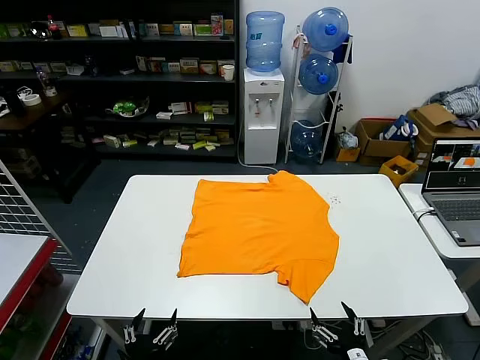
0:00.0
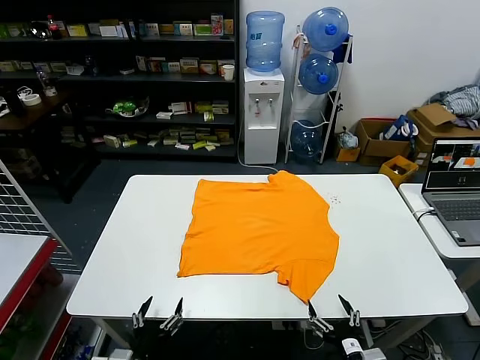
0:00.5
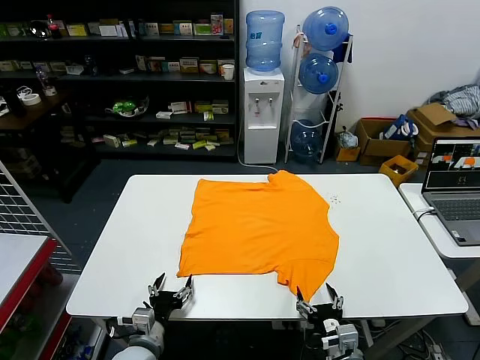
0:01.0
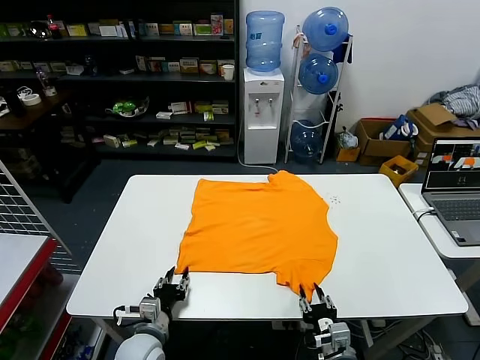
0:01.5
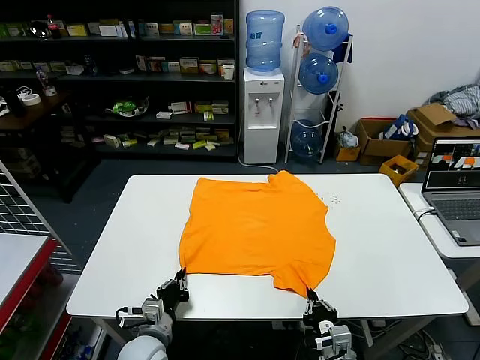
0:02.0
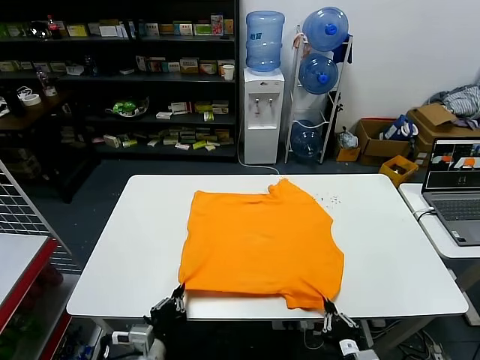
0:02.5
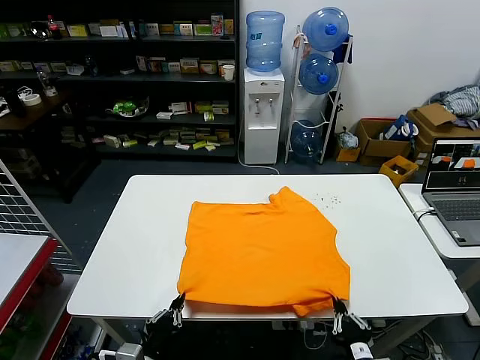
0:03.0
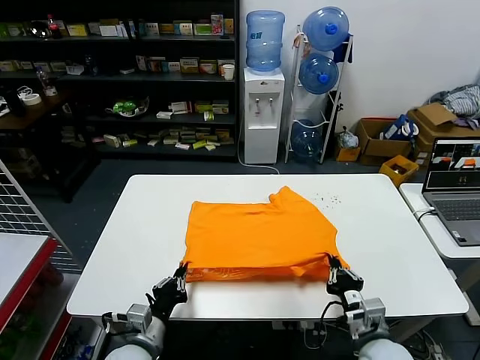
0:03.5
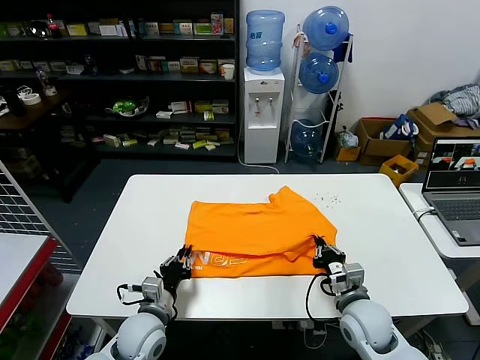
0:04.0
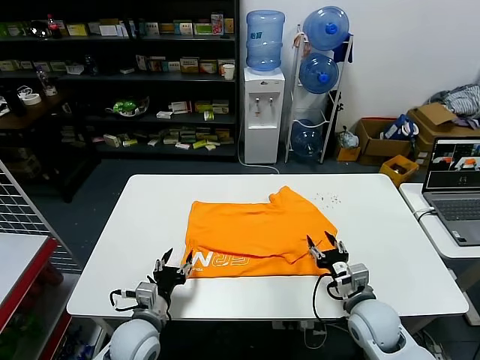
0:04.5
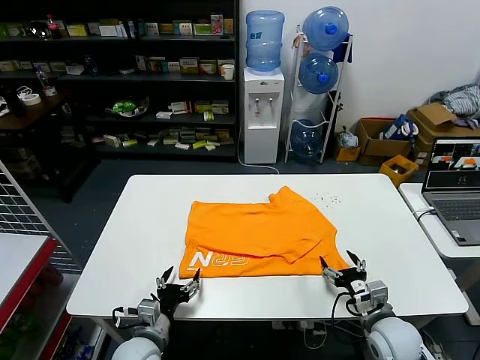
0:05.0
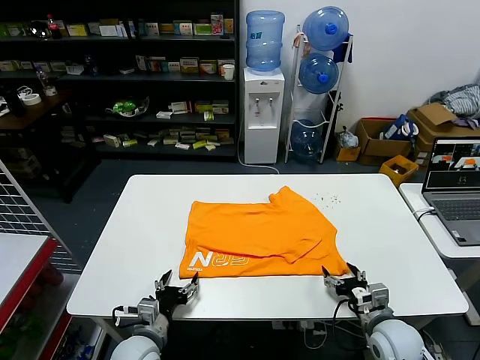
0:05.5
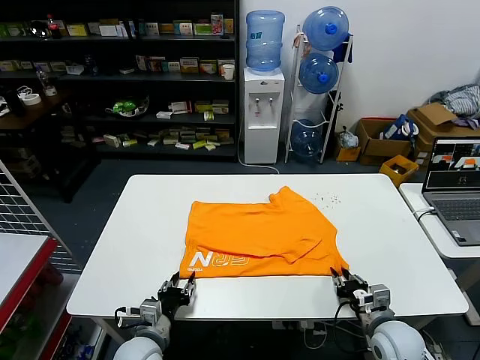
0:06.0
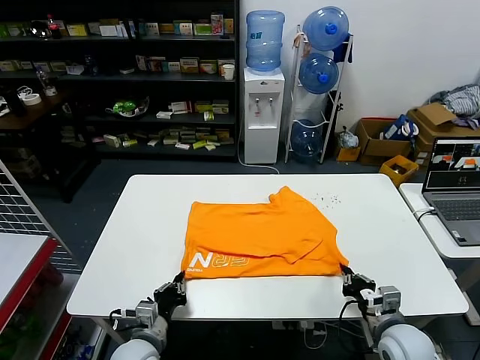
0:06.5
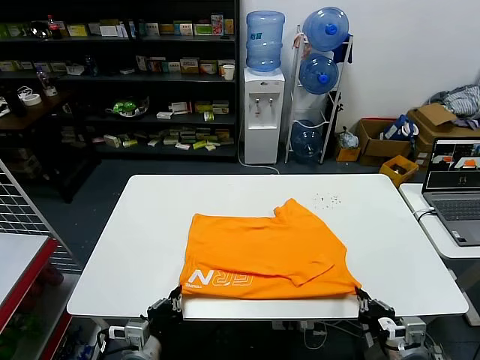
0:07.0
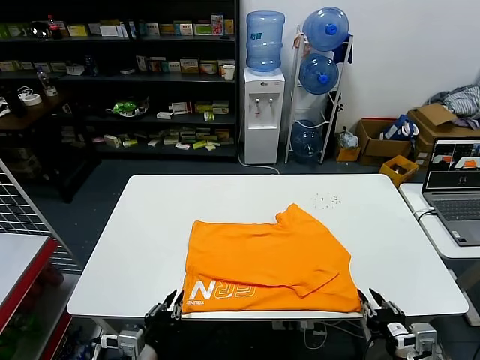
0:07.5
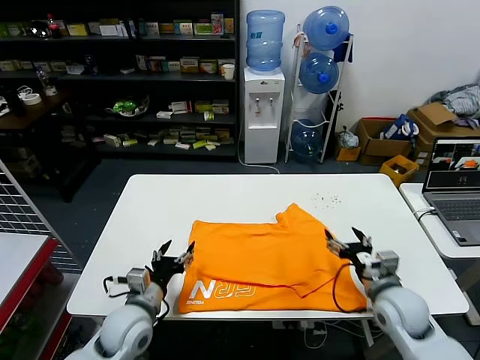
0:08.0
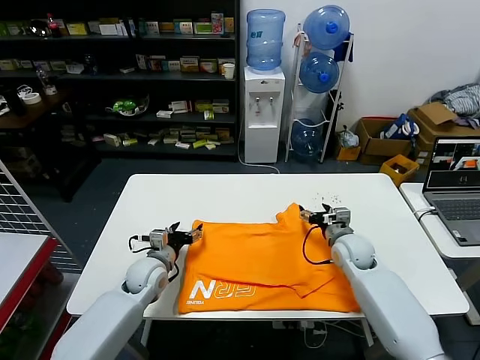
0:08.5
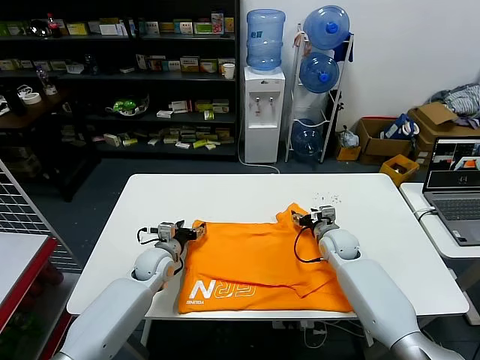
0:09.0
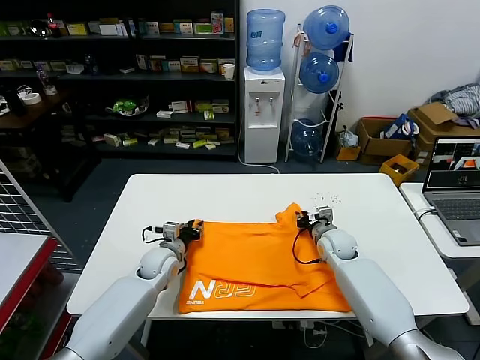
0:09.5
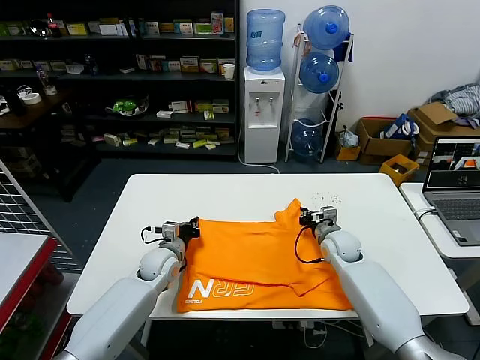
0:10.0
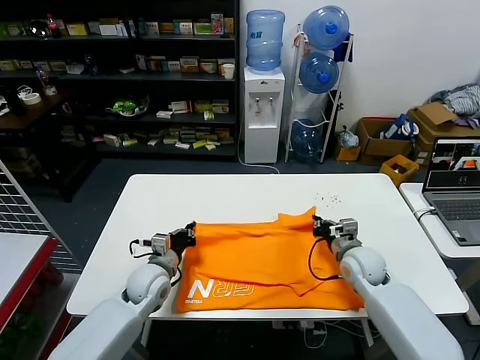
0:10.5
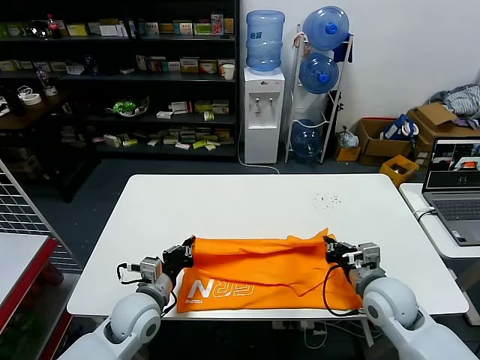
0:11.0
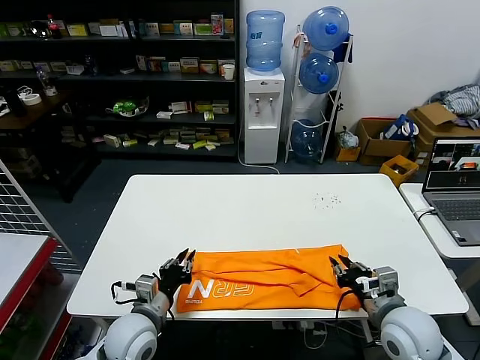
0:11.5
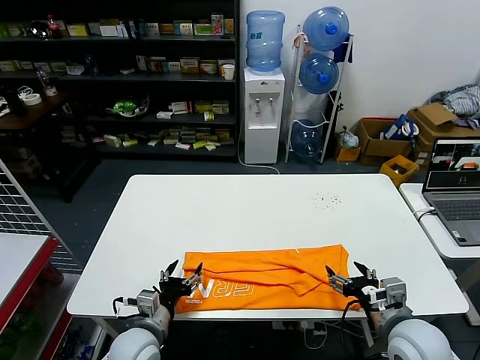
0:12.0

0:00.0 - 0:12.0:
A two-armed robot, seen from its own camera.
Task of the whole recording: fold and organize the clothes.
Step, 0:00.0 - 0:01.5: use both grippers simultaneously to clamp the lower edge of the clothing fabric.
Step, 0:02.0 - 0:04.0: use both grippers to drag the lower edge of the fabric forward and fold it over the upper edge.
Step, 0:04.5 - 0:07.0: Drag the clothes downward with both gripper.
Step, 0:07.5 - 0:09.5: use both grippers simultaneously to clamp the upper edge of the clothing fabric.
Step, 0:10.0 - 0:11.0: use both grippers to drag the upper edge of the fabric backward and fold it over the lower edge.
0:02.0 - 0:04.0: The right gripper heads forward and upward, covering approximately 15 cm. The left gripper moves roughly 10 cm backward and comes back.
0:04.0 - 0:06.0: The left gripper opens up; the right gripper travels to the right by roughly 5 cm, and opens and closes again.
0:06.0 - 0:08.0: The right gripper is displaced upward and forward by approximately 10 cm, and opens up, while the left gripper moves upward, about 5 cm, goes backward and returns, roughly 10 cm each way, and closes, then opens again.
0:08.0 - 0:10.0: The two grippers go about 15 cm forward. The right gripper closes its fingers. Meanwhile the left gripper closes up.
0:10.0 - 0:12.0: Both grippers move backward, about 25 cm. The right gripper opens its fingers. Meanwhile the left gripper opens its fingers.

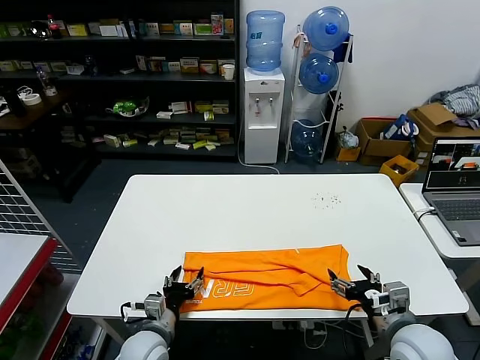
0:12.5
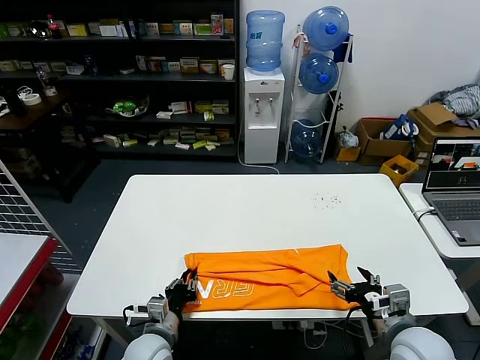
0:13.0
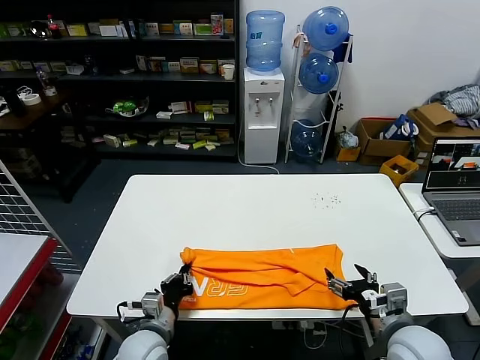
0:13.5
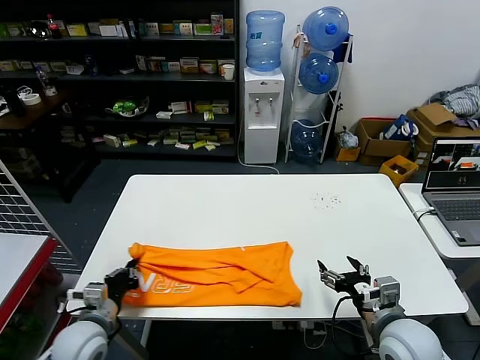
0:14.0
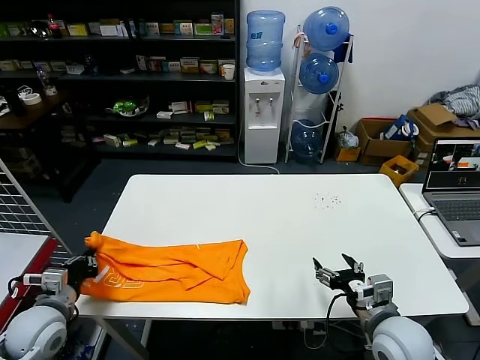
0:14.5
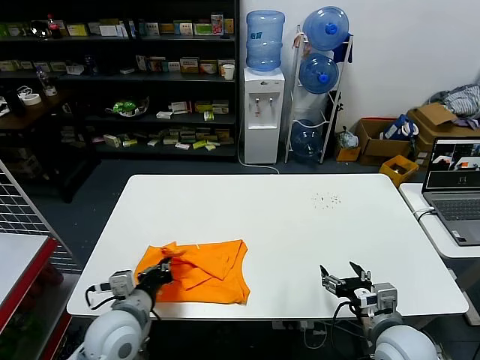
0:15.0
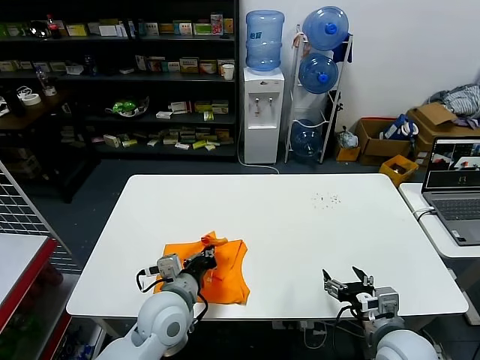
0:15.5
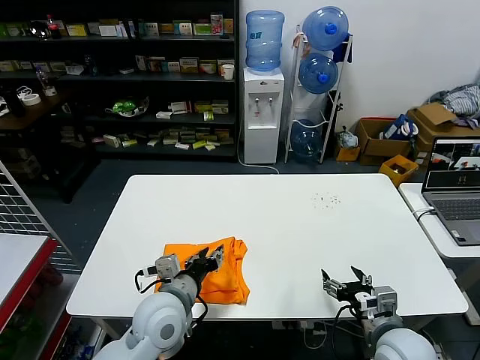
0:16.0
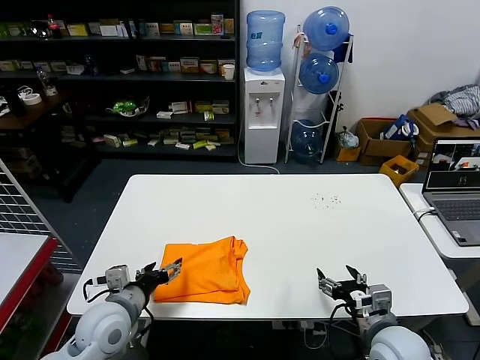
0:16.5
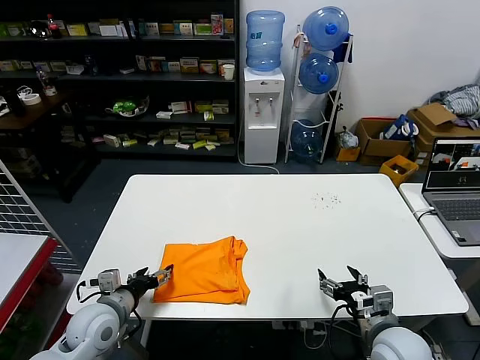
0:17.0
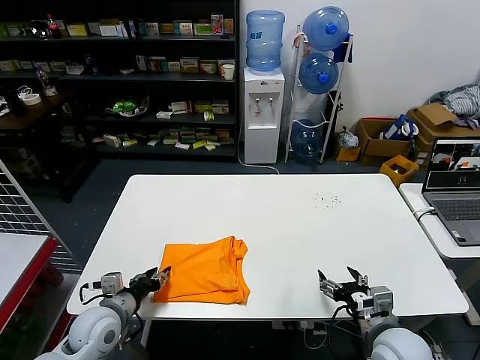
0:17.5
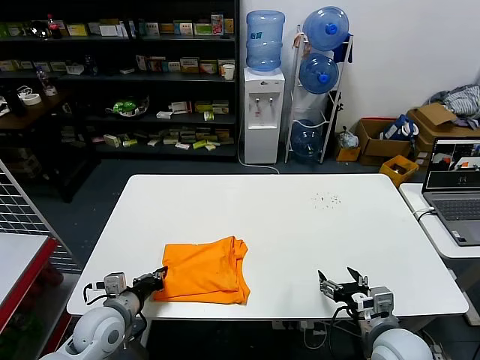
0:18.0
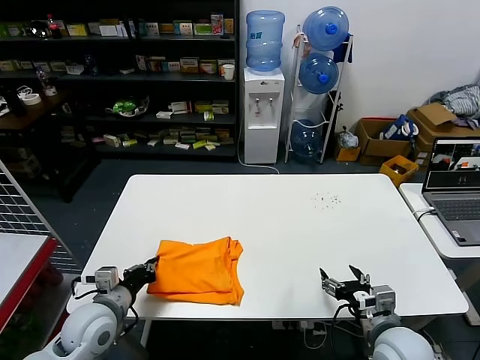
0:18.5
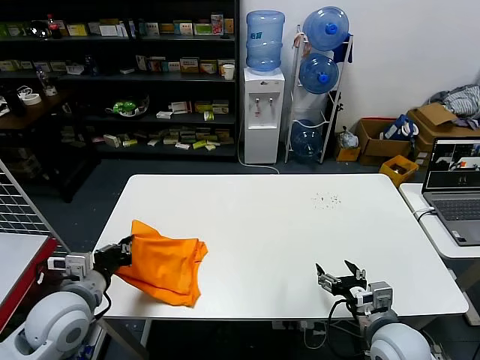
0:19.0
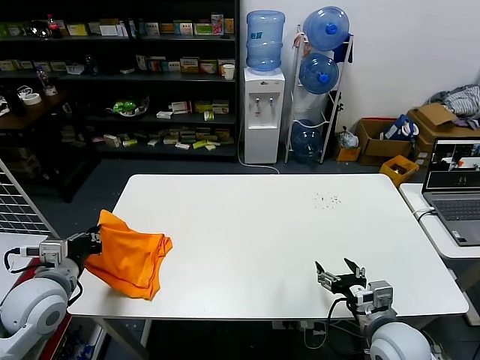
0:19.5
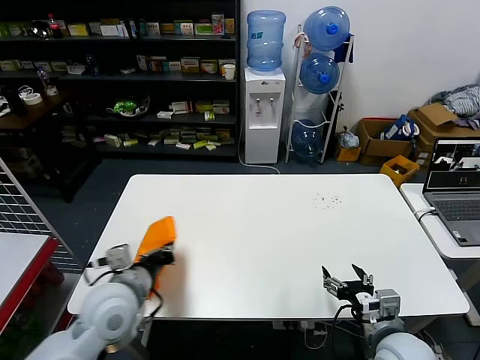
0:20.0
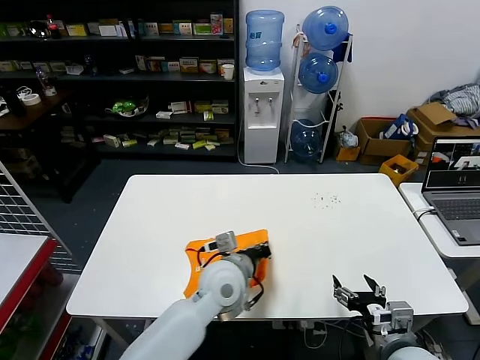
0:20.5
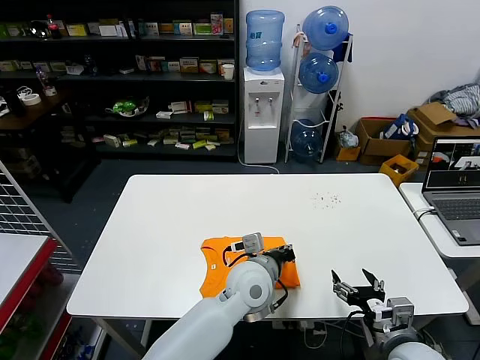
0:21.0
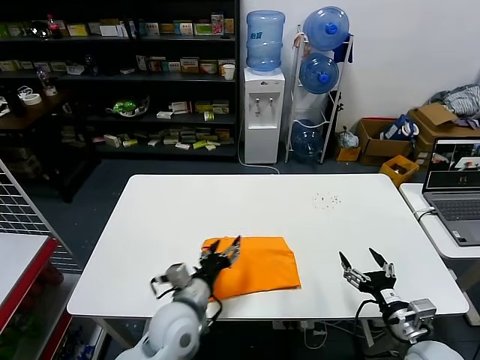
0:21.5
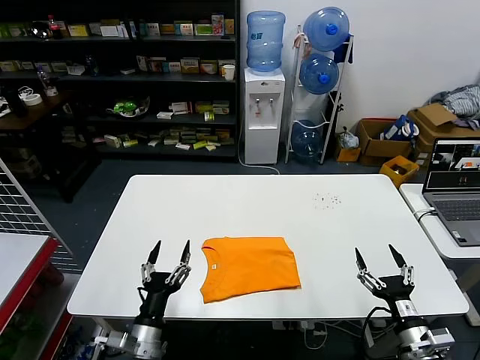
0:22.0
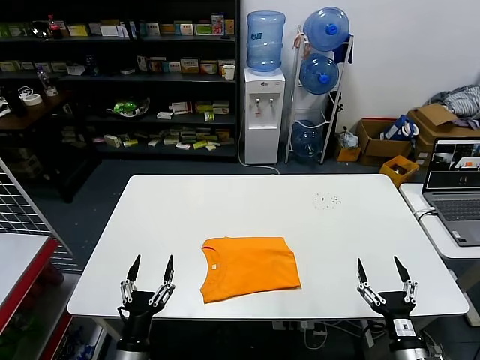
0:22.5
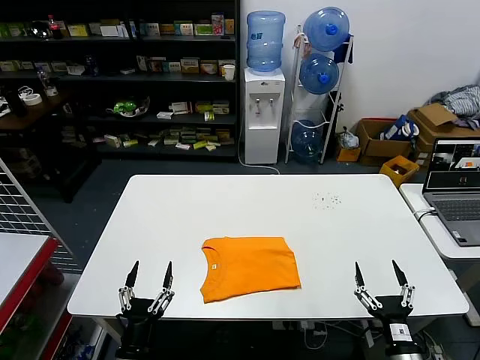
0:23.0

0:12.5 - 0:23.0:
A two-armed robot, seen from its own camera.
Task of the whole recording: fold and organize the clothes.
Step, 0:13.5 - 0:15.5: use the left gripper to drag the left edge of the fabric to the left and folds it over the right edge.
Step, 0:16.0 - 0:21.0: Flip the folded clothes over with left gripper.
0:12.5 - 0:14.5: The left gripper shifts approximately 20 cm to the left and upward, and closes.
0:14.5 - 0:16.5: The left gripper is displaced to the right by about 15 cm, and opens up.
0:16.5 - 0:19.0: The left gripper heads to the left and upward, covering about 10 cm, and closes its fingers.
0:19.0 - 0:21.0: The left gripper goes about 35 cm to the right.
0:21.0 - 0:23.0: The right gripper is displaced downward and backward by approximately 10 cm. The left gripper goes roughly 35 cm to the left, backward and downward, and opens up.

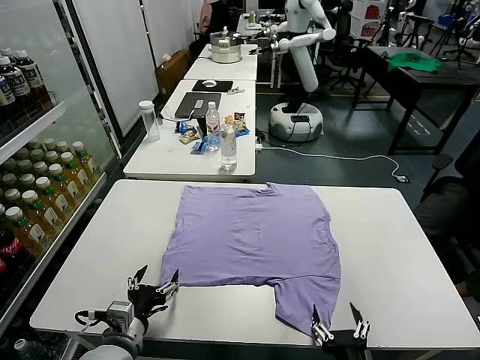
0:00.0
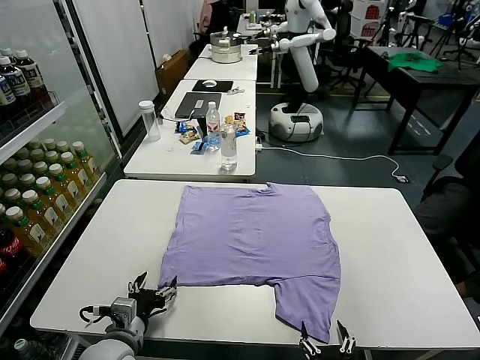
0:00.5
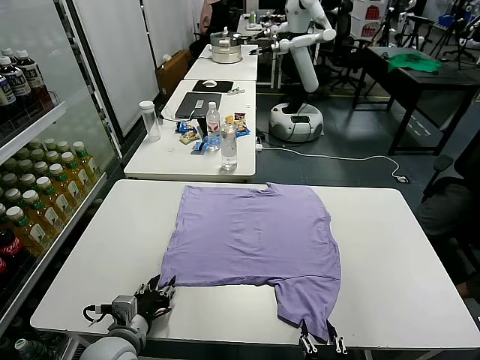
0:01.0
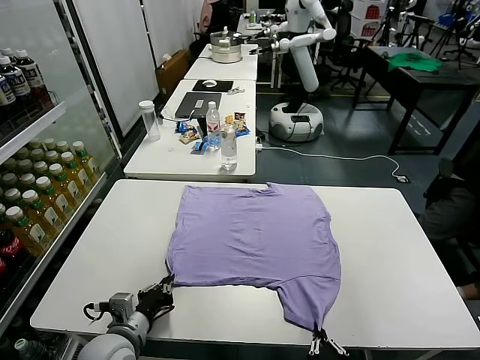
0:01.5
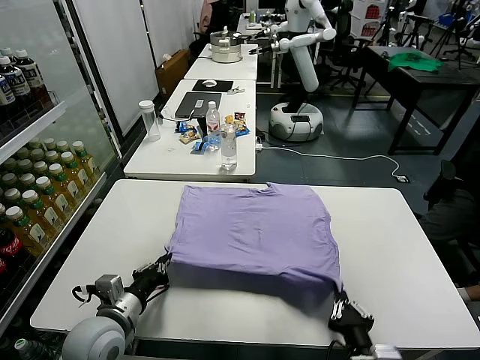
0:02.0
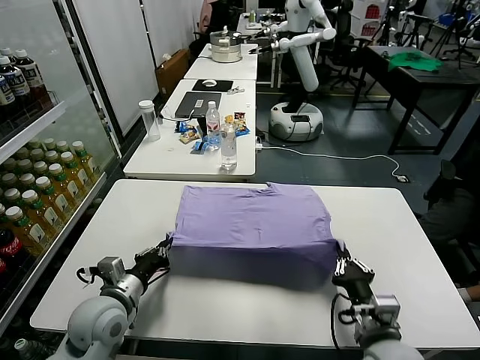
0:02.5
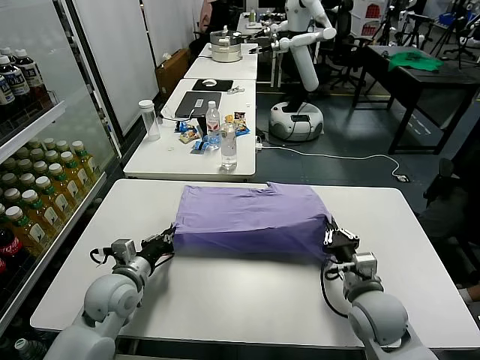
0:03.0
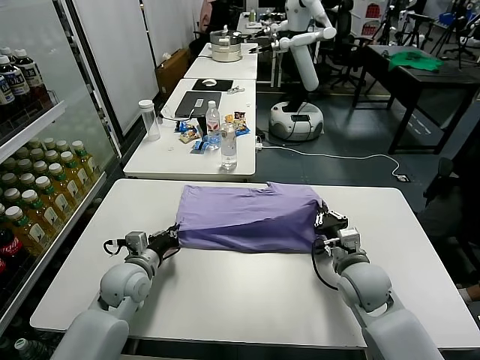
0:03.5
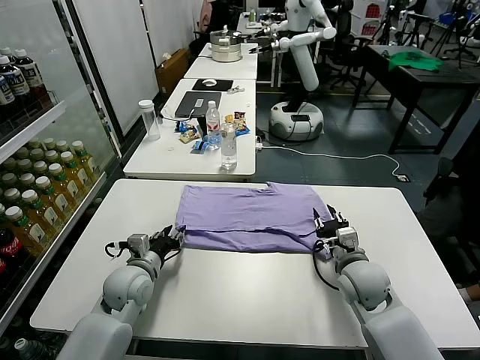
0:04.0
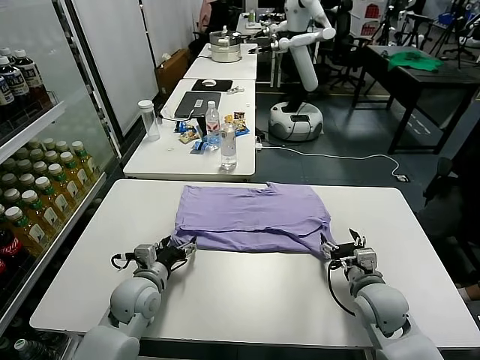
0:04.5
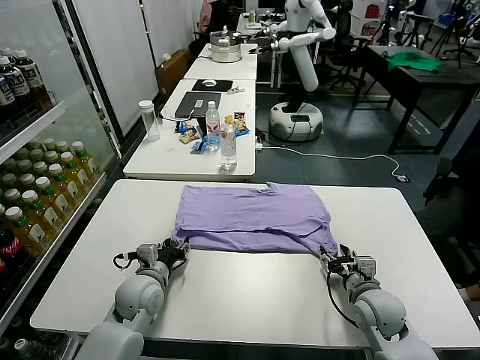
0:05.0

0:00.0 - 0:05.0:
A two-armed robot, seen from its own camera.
Task of the whole recording: fold and organize the clothes.
Step, 0:00.0 - 0:01.0: use both grippers simultaneously to clamp the lower edge of the clothing fabric.
Step, 0:01.5 - 0:04.0: use both grippers to drag the lower edge of the fabric forward and fold it over the upper edge.
0:02.5 - 0:05.0: The two grippers go approximately 10 cm forward and downward. The right gripper opens; the left gripper opens.
